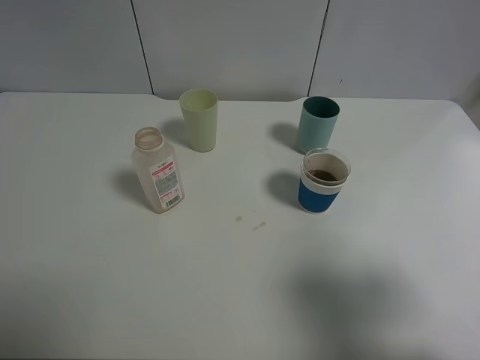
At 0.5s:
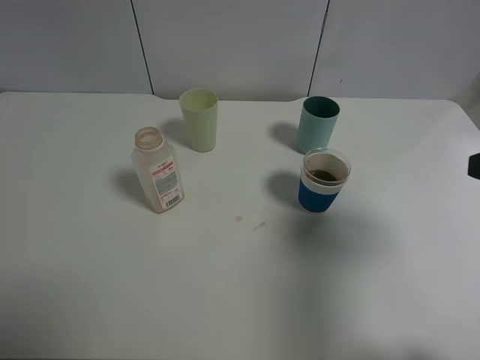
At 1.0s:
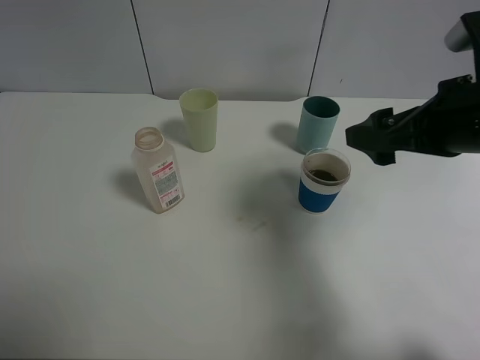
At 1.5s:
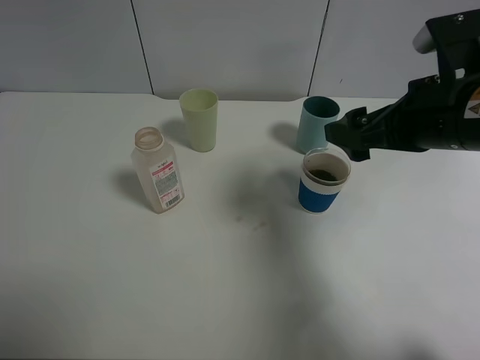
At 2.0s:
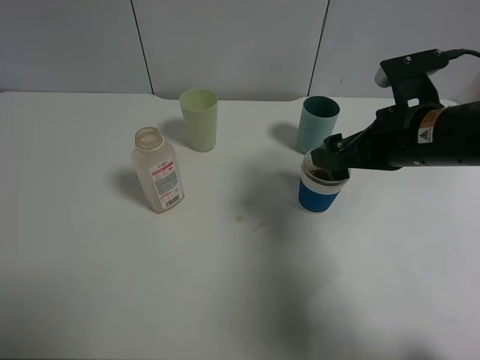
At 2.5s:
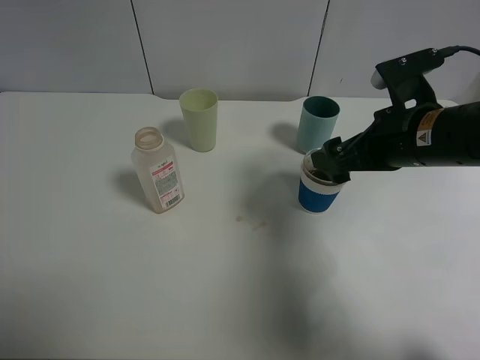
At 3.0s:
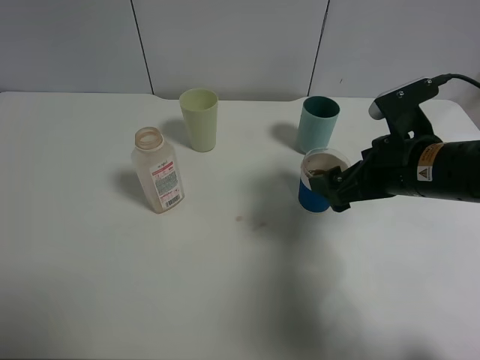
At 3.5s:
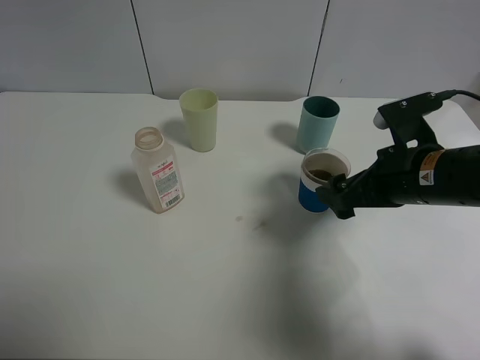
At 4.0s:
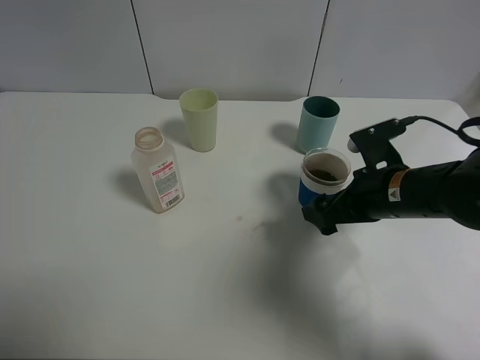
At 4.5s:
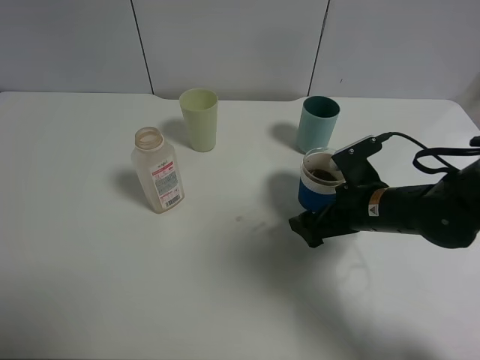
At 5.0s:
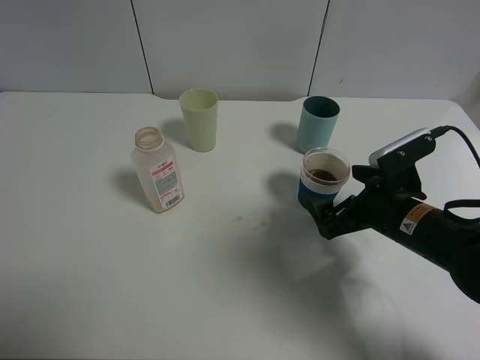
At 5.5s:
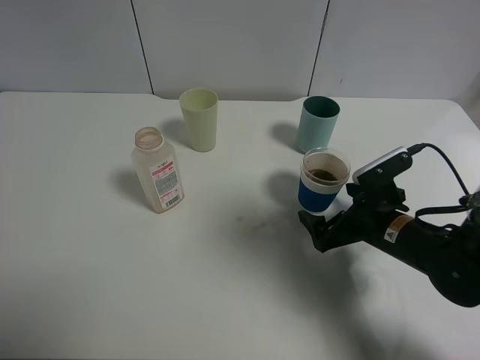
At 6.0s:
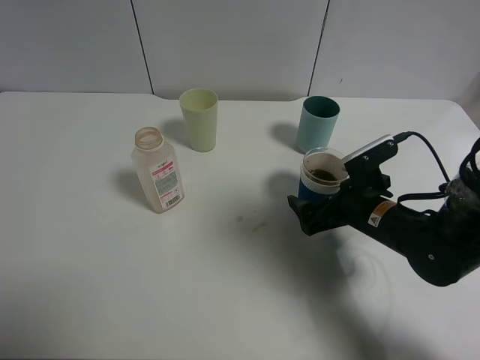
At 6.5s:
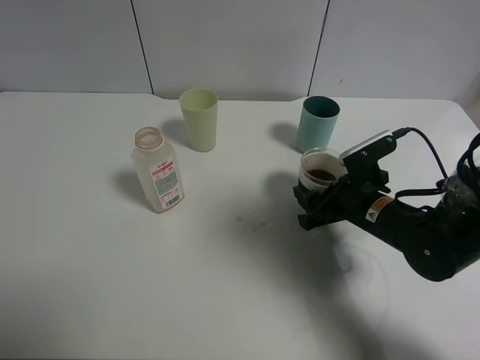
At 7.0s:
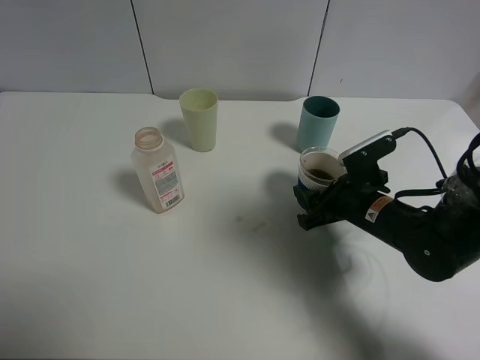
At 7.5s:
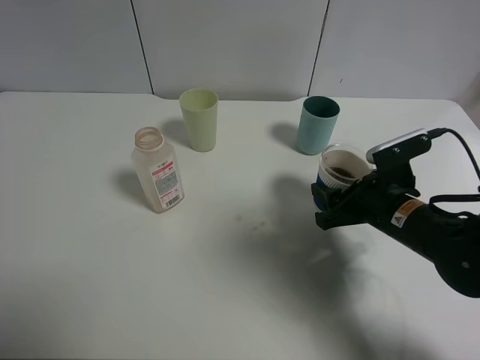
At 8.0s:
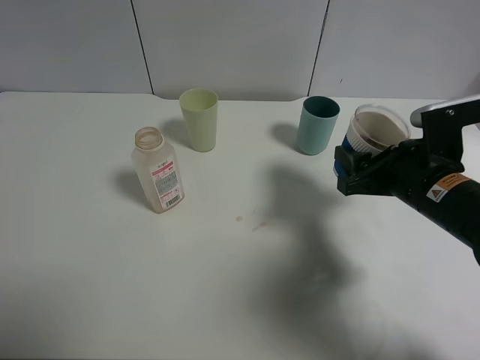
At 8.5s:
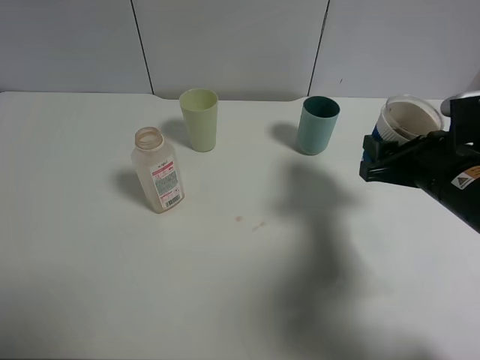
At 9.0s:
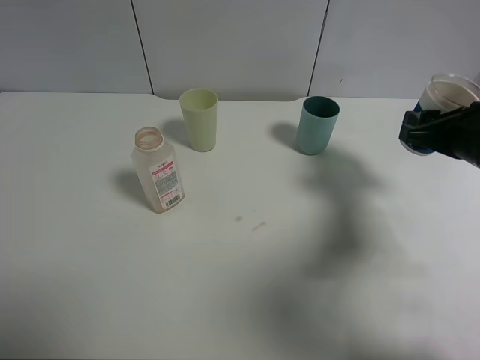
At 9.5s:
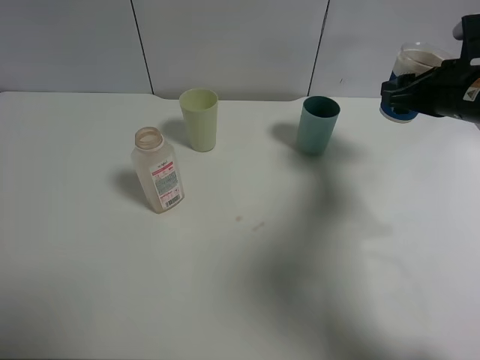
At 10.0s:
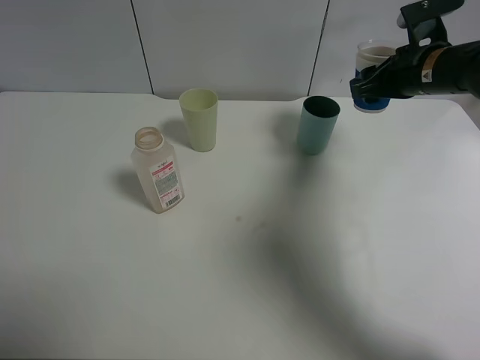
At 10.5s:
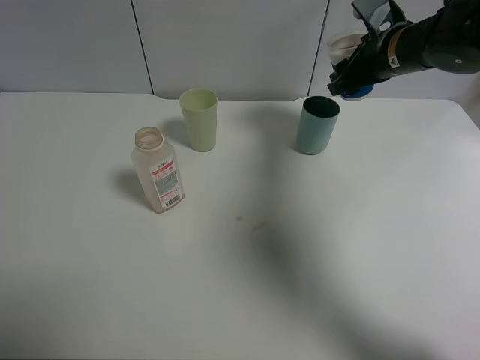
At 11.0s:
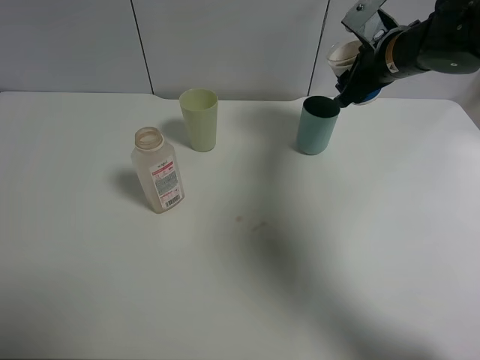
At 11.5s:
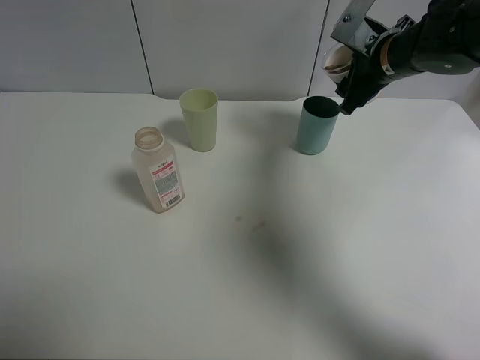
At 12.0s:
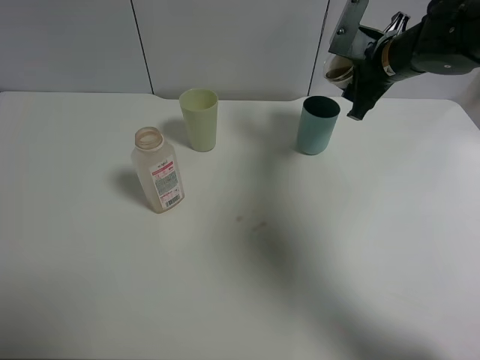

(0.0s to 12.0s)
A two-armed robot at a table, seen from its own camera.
Task of the whole recording: use a clamp to hold the bottle of the drink, pour the beverage into a random cup, then clamp the cup containing the drink and pour the drink into another random cup.
Step, 0.0s - 7.5s: Pick up the paper cup with right gripper.
0.0s - 2.0s: The right gripper is displaced forward and to the left by about 25 cm.
2.0s - 4.0s: The right gripper travels downward by roughly 10 cm.
4.0s - 6.0s: The right gripper travels downward by about 5 cm.
6.0s - 8.0s: The right gripper heads upward, covering roughly 10 cm, and closes up.
8.0s - 10.0s: The right gripper goes roughly 15 cm forward and upward.
10.0s - 12.0s: The right gripper heads to the left, covering about 5 cm.

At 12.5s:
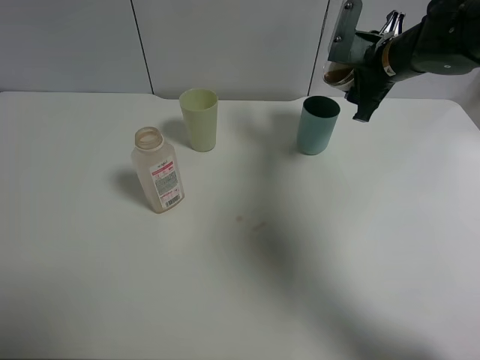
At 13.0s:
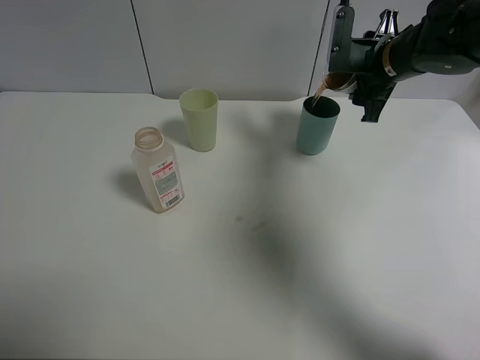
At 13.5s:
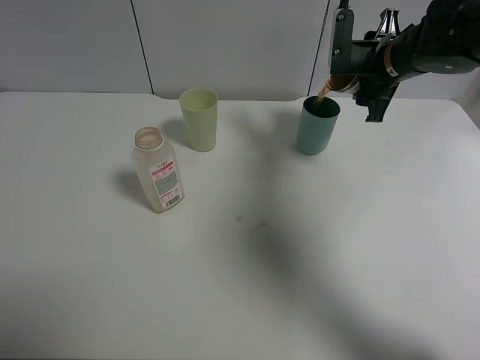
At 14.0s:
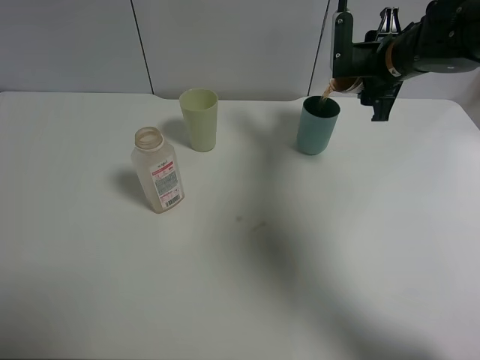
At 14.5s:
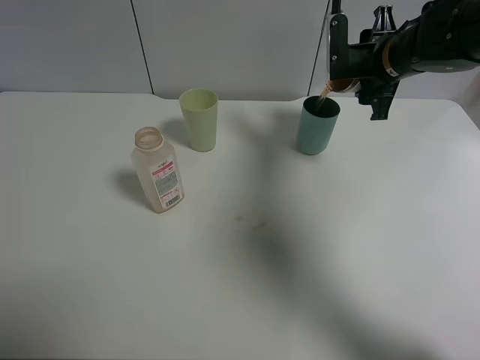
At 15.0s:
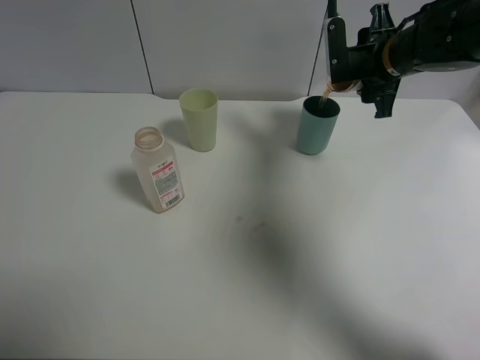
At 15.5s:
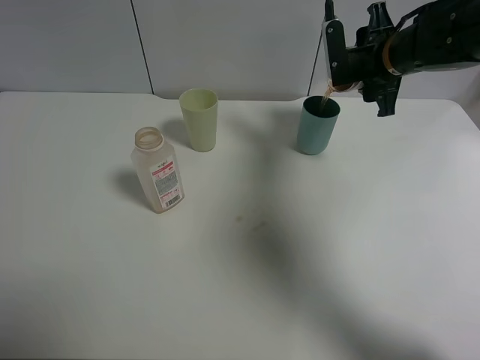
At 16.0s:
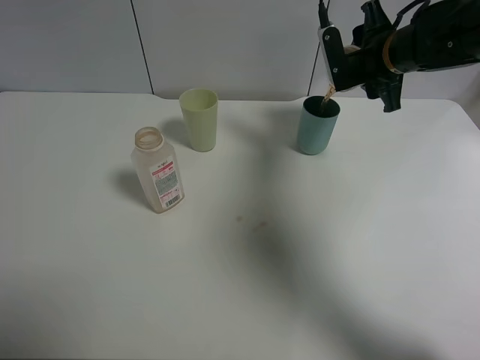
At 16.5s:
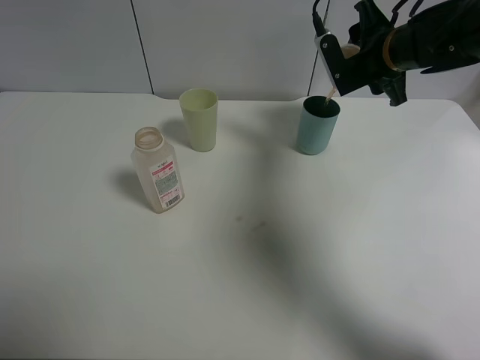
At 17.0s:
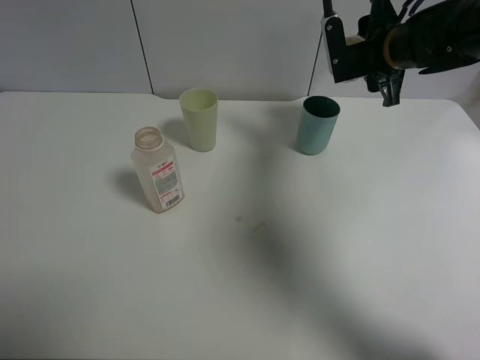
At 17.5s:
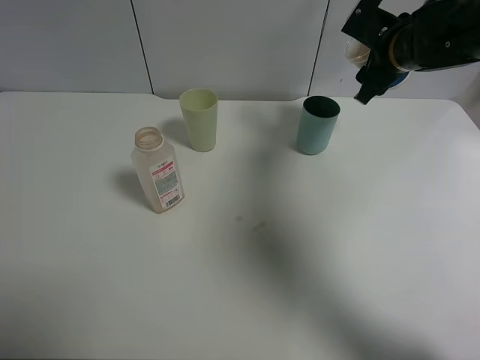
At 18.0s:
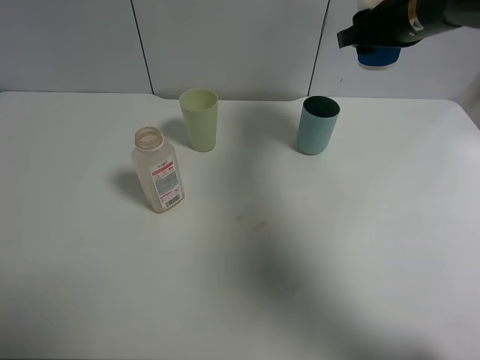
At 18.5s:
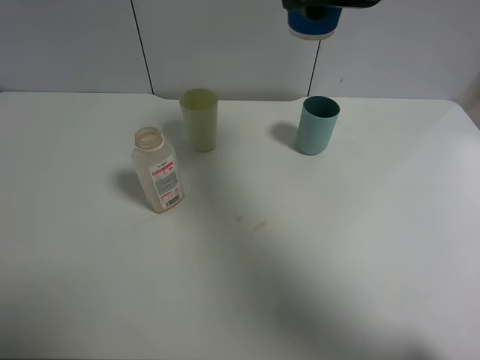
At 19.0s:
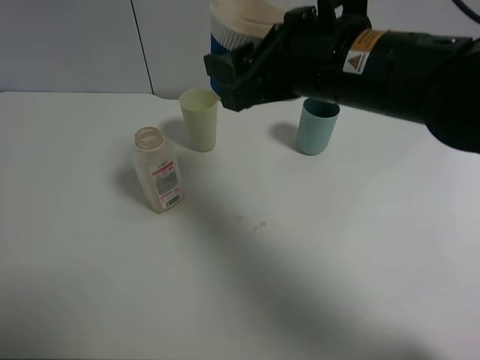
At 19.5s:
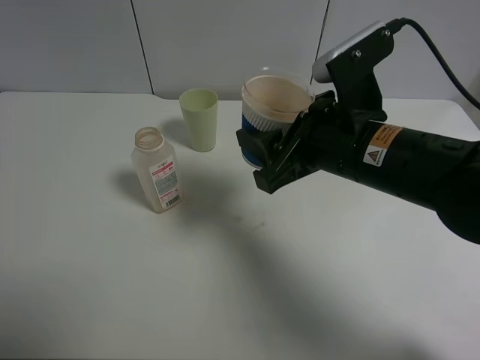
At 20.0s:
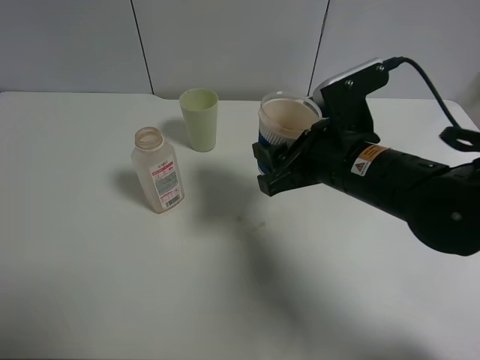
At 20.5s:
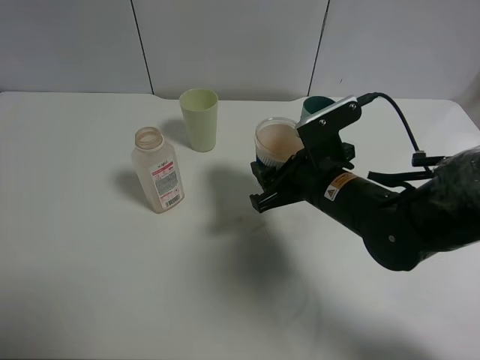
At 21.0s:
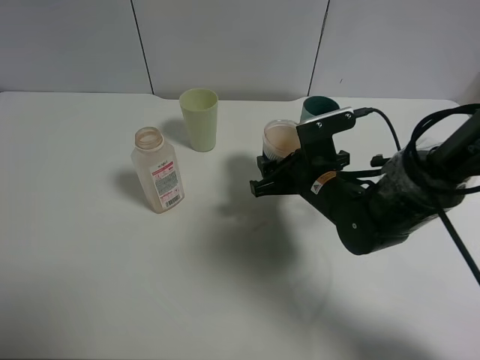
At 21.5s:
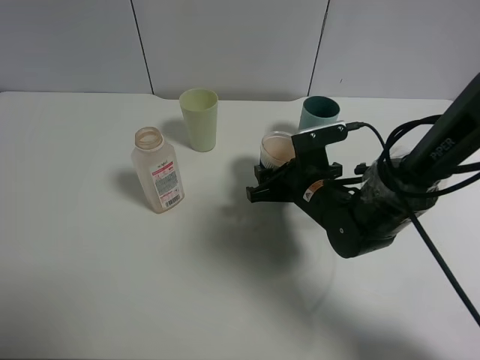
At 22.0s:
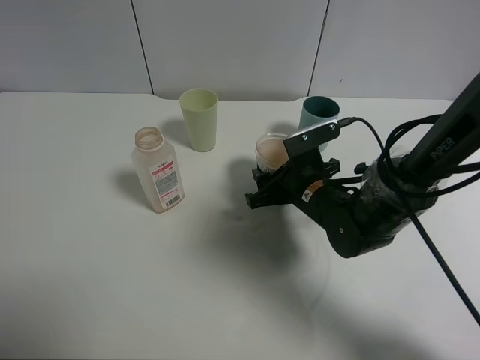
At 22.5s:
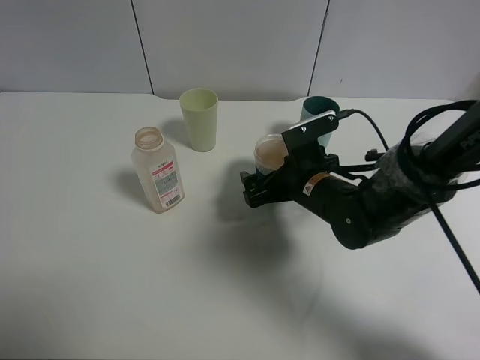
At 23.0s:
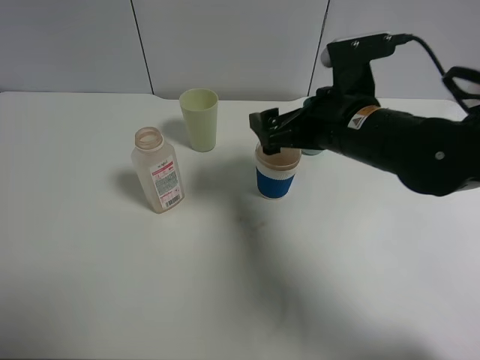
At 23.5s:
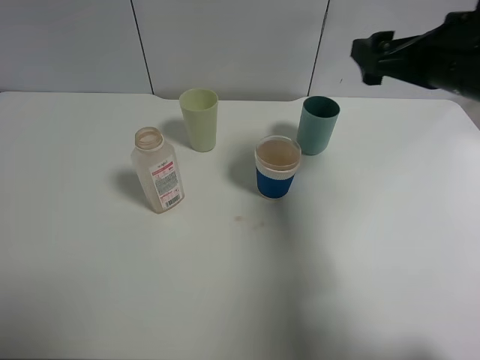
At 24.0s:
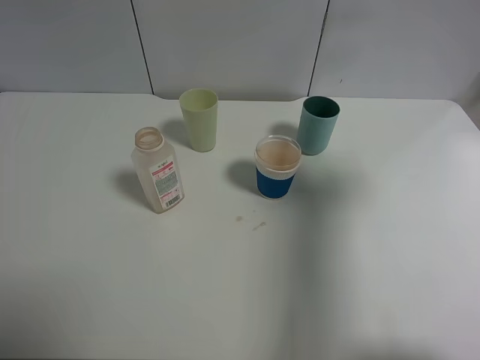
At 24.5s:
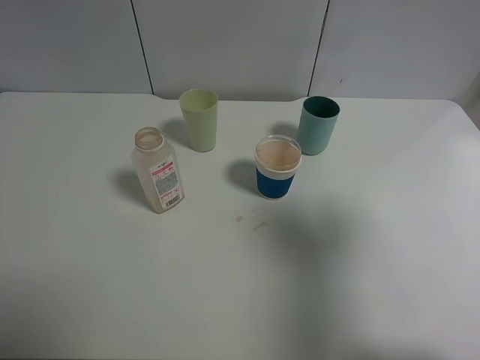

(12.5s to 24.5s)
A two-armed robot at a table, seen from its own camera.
Task of the whole recording: use a clamp to hold the bottle of the drink, pour the beverage into a random cup, then clamp the cup containing the drink and pour the drink into another random cup.
Step, 12.5s - 17.5s: Pour the drink into the blue plastic cup with right gripper.
Step, 18.0s - 22.5s: Place the paper cup on the table with right gripper.
12.5s - 14.5s: The grippers make only small movements.
16.5s - 18.5s: The right gripper travels upward, backward and to the left by some 20 cm.
18.5s - 20.5s: The right gripper moves downward, approximately 20 cm.
20.5s - 22.5s: The right gripper ends up some 5 cm from where it was, and opens.
22.5s - 24.5s: The right gripper is displaced upward, backward and to the right by roughly 35 cm.

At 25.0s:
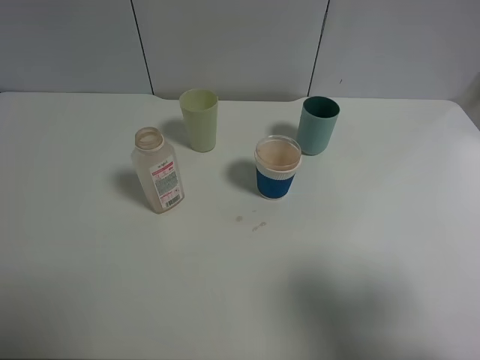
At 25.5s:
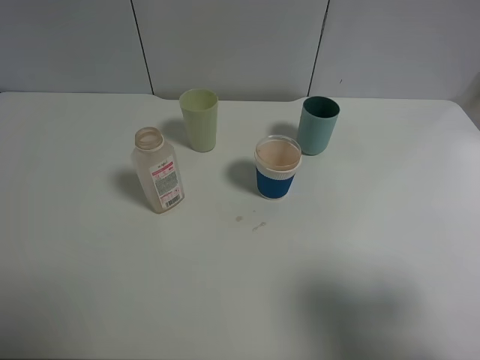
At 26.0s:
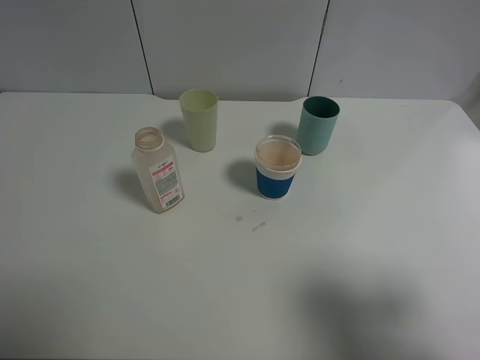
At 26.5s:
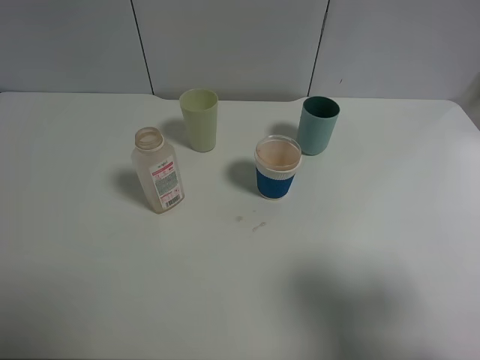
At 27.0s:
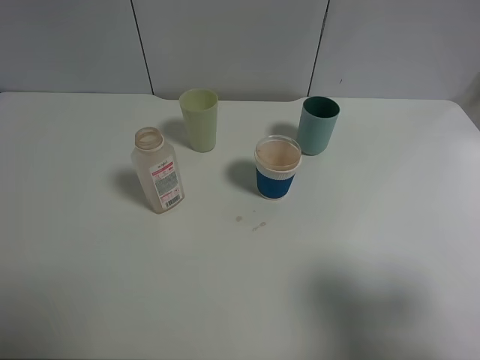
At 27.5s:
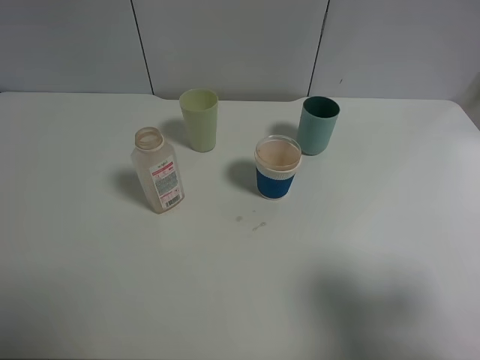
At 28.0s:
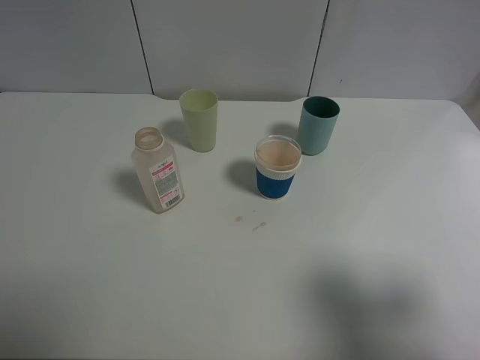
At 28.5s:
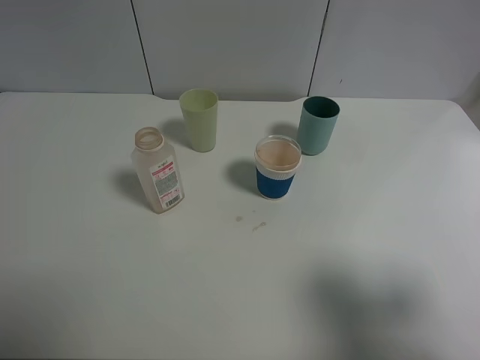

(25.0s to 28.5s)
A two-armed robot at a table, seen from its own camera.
Task of the whole recording: use a clamp to hold the bottle of the drink, pour the beverage into a random cup, then clamp the cup containing the drink and pour the drink into another random cup.
27.0s - 28.5s: Both grippers stay about where they are.
